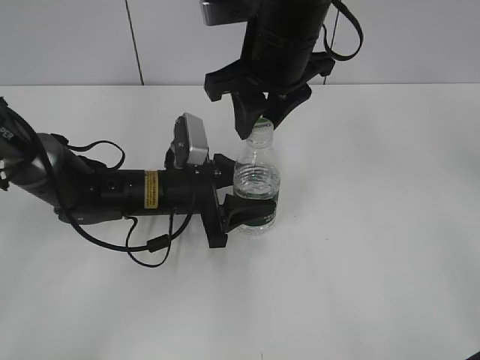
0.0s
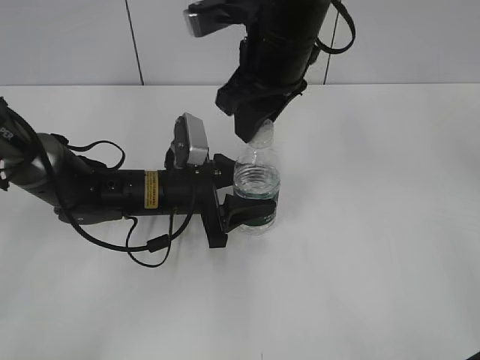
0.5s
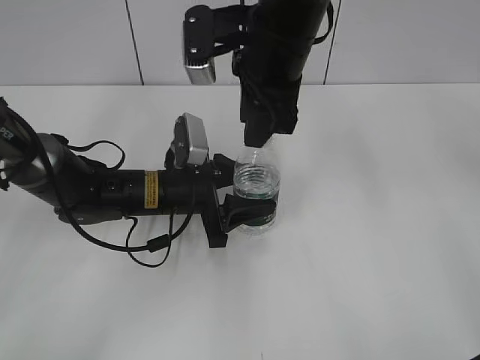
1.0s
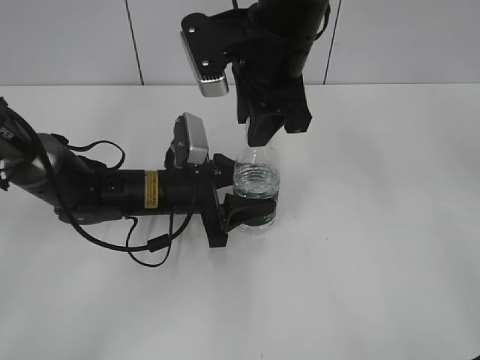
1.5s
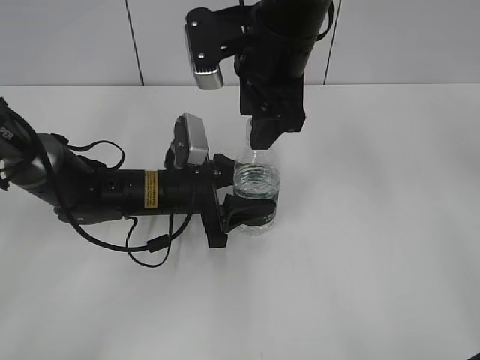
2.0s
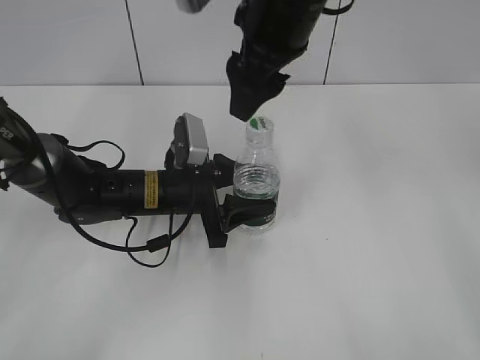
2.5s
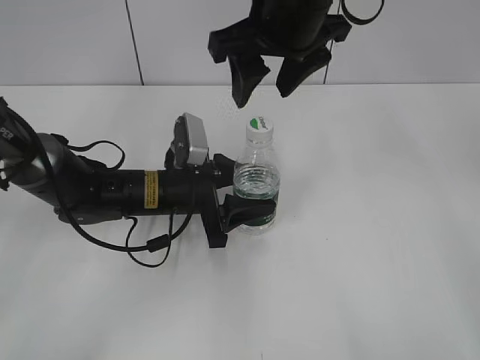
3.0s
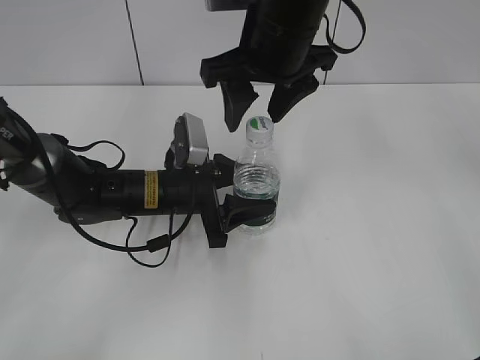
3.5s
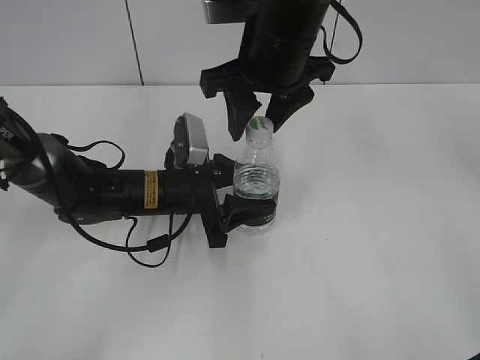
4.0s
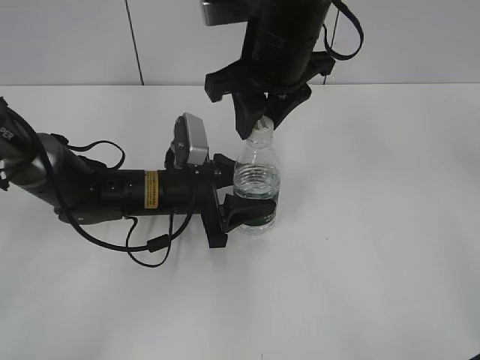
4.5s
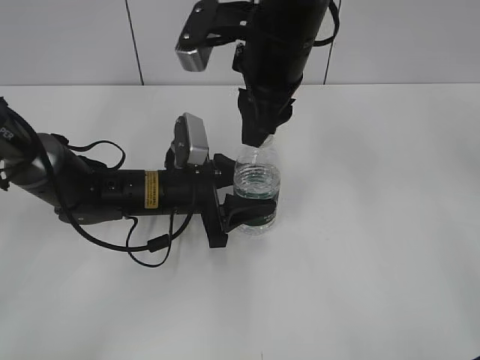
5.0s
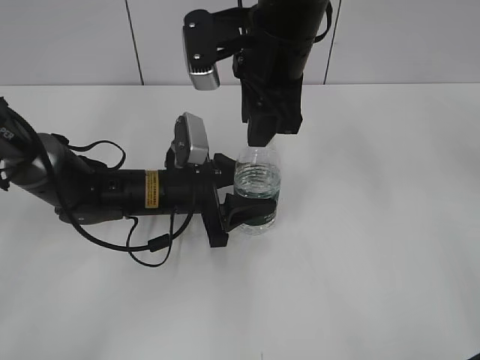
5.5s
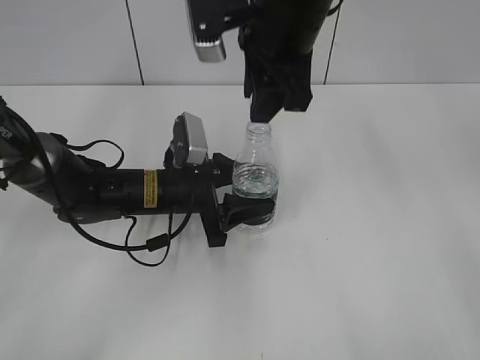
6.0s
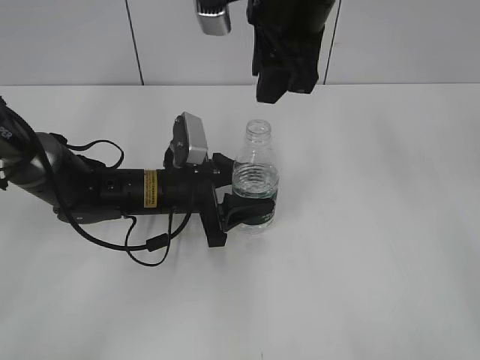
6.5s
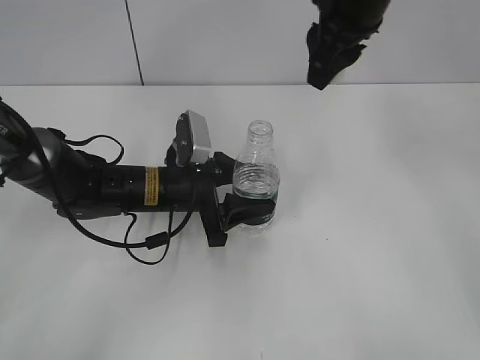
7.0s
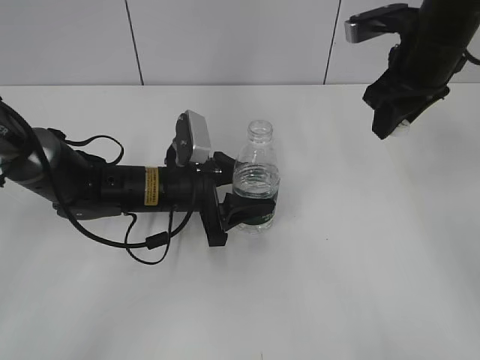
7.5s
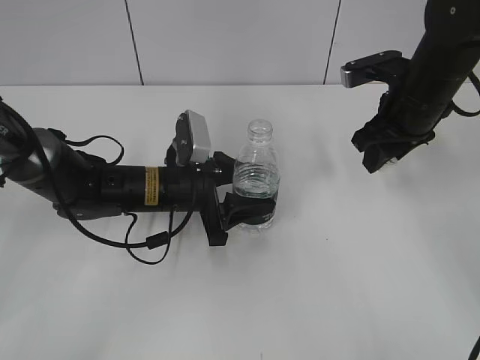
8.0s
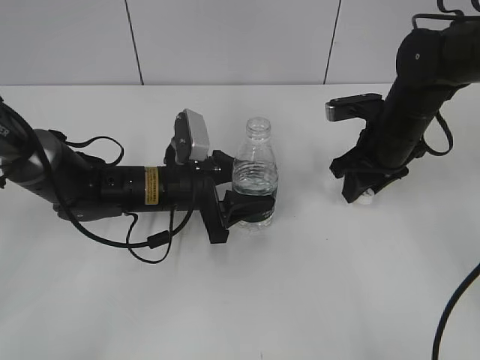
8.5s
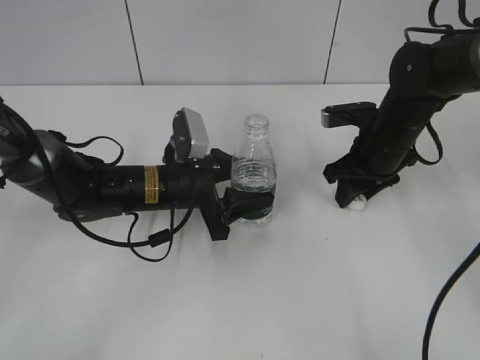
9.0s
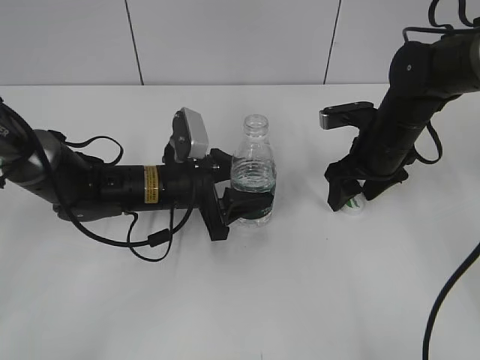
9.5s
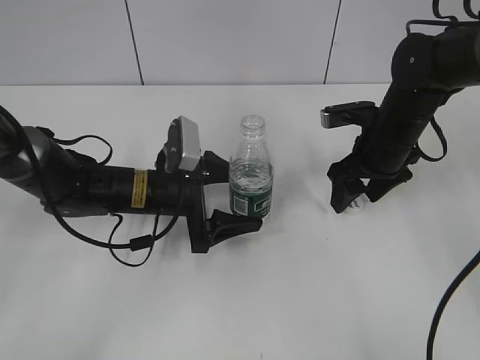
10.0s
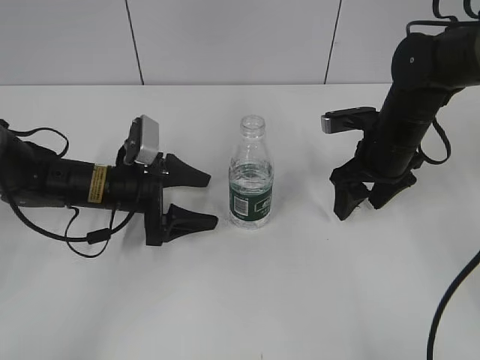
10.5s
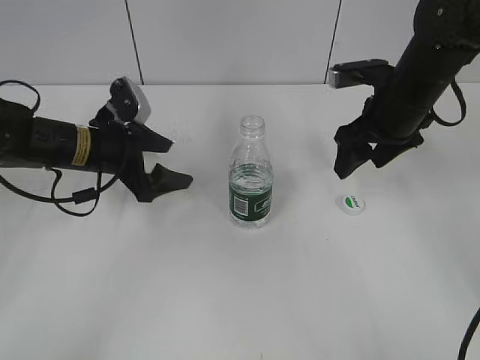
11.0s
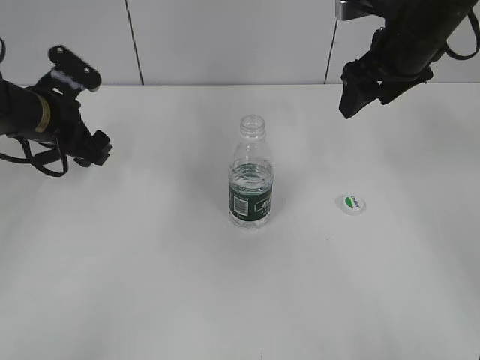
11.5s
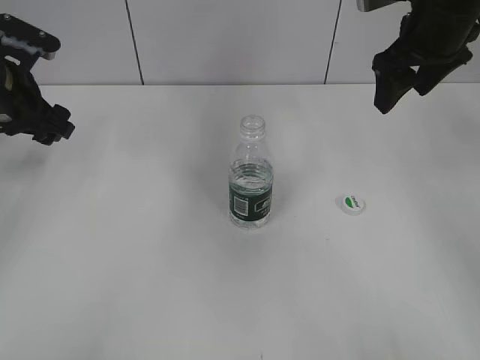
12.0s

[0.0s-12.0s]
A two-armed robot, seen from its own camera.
Step, 0.0s to 6.0s: Unscrew the bottle cap with the right gripper while holding the bottle with the left gripper.
0.0s to 2.0s: The right gripper opens up.
4.0s to 6.0s: The right gripper closes up.
6.0s to 8.0s: The right gripper shifts approximately 20 cm to the right and downward.
8.0s to 10.0s: The left gripper opens up, while the right gripper travels downward by roughly 5 cm, and opens up.
10.0s to 12.0s: The left gripper shifts some 20 cm to the left and upward; the right gripper is displaced upward by about 15 cm.

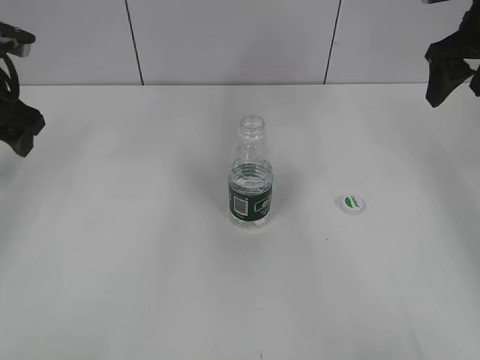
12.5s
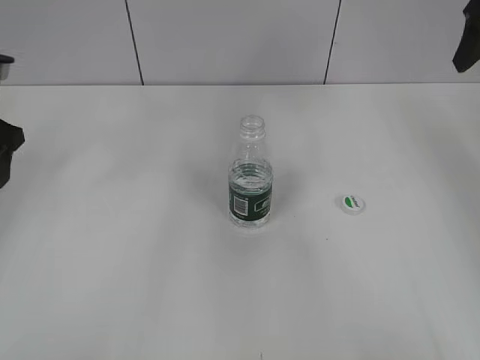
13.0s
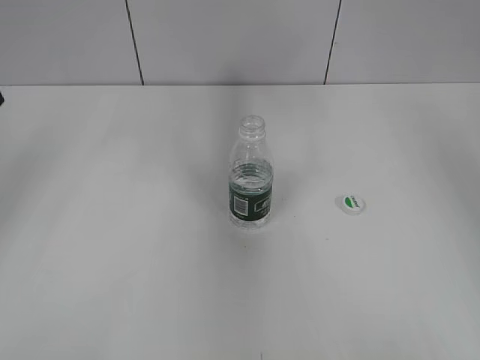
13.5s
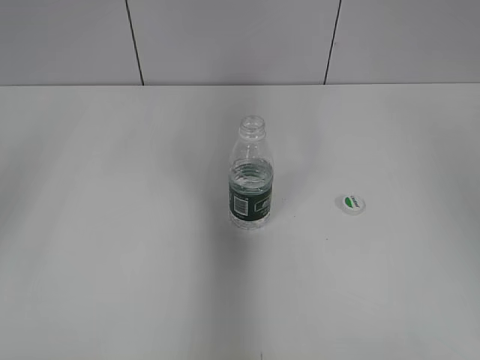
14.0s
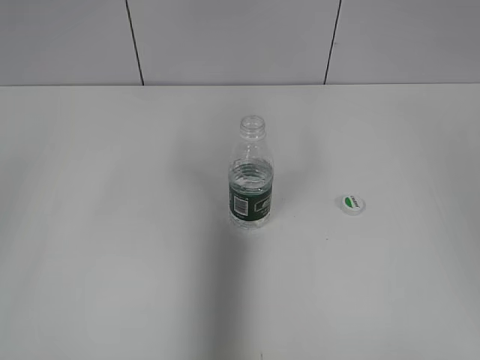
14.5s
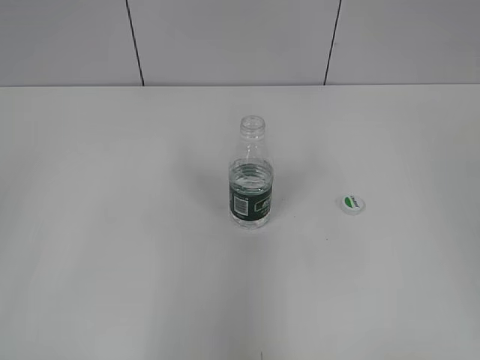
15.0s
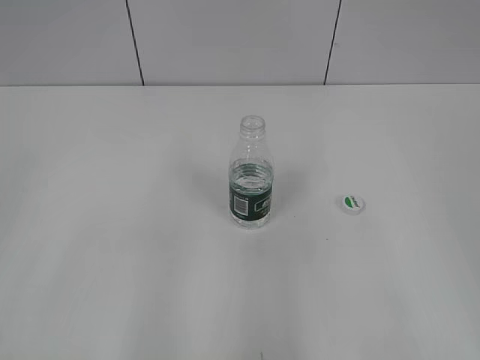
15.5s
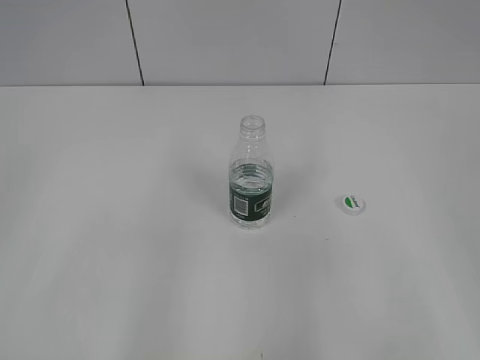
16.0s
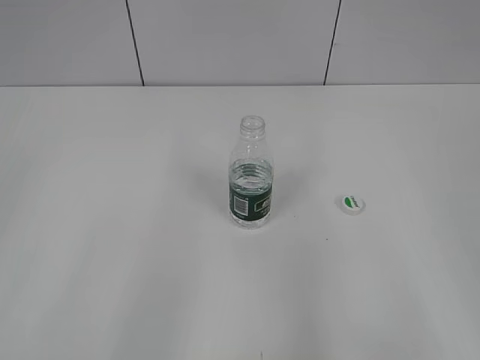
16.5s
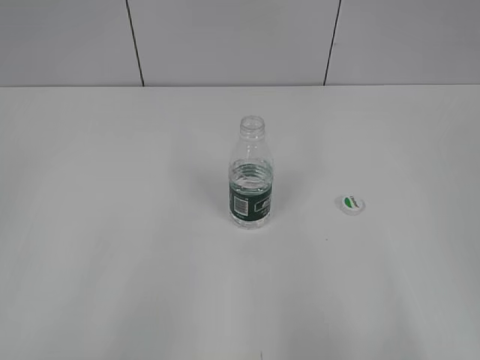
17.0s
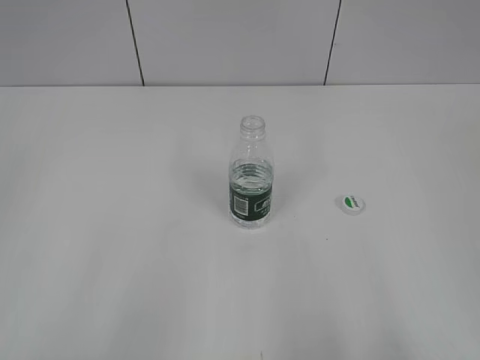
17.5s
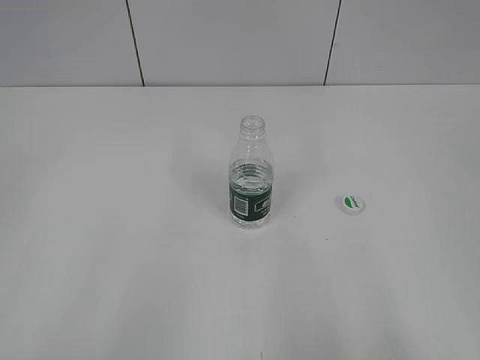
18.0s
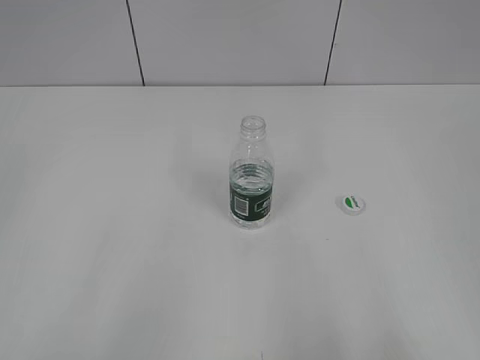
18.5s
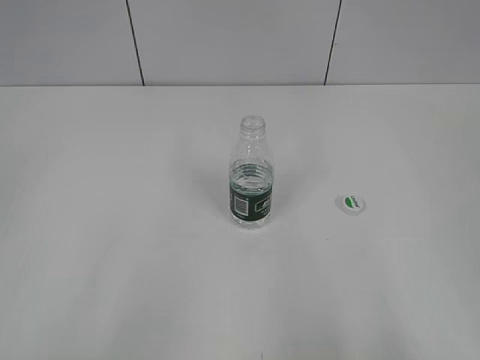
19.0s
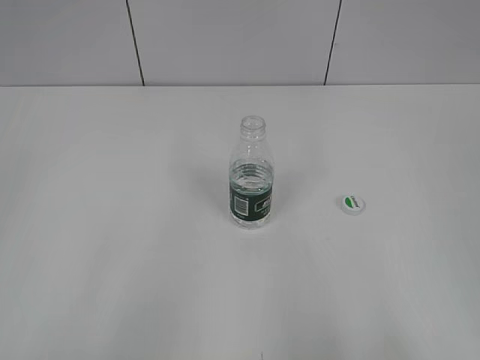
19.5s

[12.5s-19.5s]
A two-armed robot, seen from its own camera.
12.5s to 14.5s: The grippers both shift backward and upward by some 25 cm.
14.5s to 16.0s: The left gripper shifts roughly 10 cm backward, while the right gripper heads downward and backward, covering some 15 cm.
17.5s to 19.5s: Neither gripper changes place.

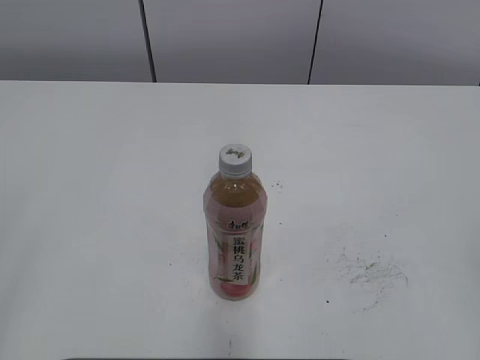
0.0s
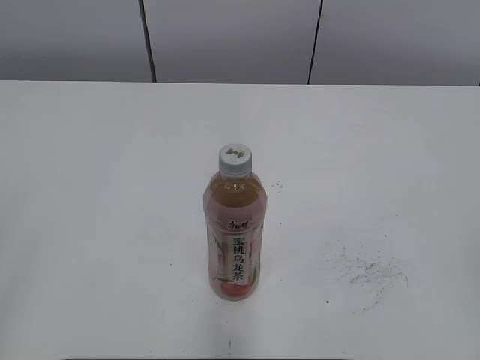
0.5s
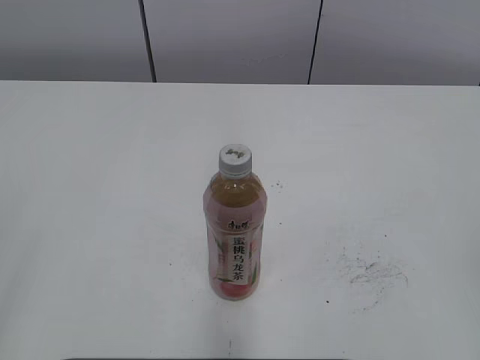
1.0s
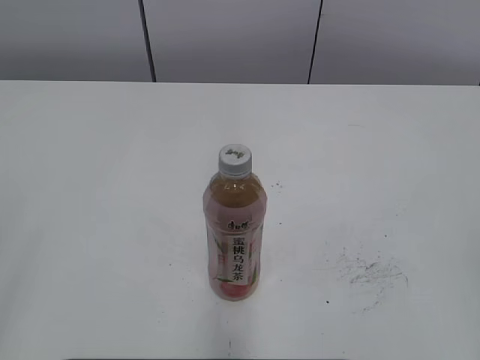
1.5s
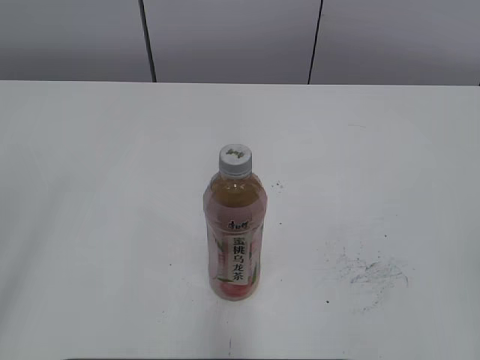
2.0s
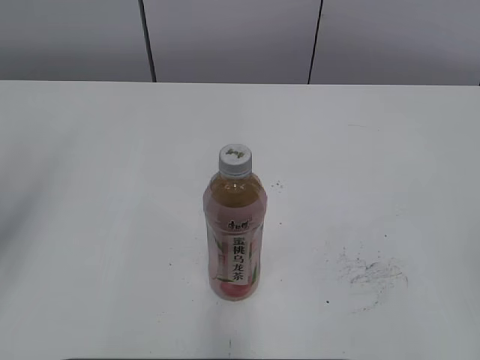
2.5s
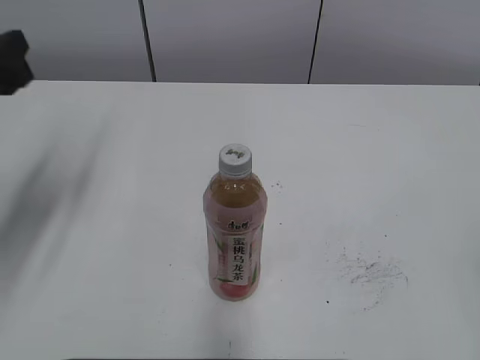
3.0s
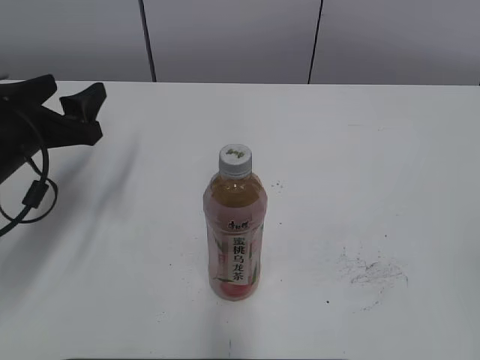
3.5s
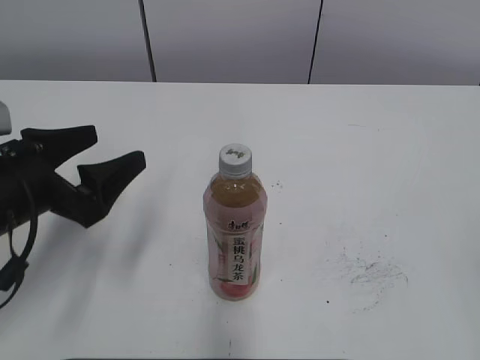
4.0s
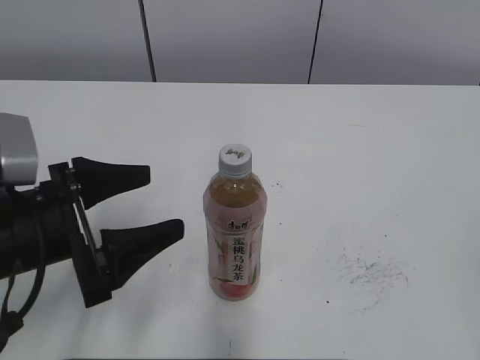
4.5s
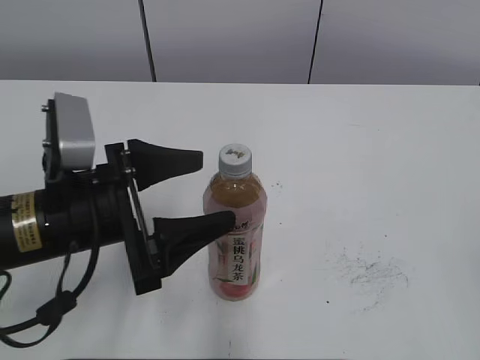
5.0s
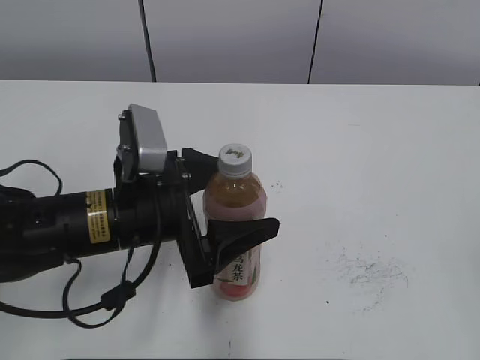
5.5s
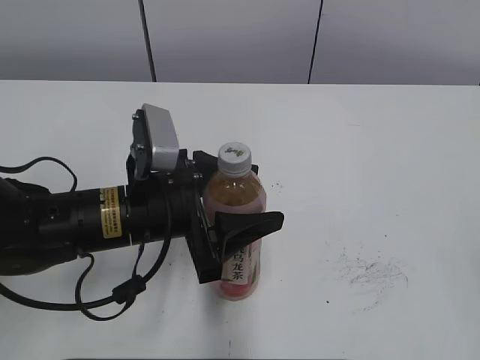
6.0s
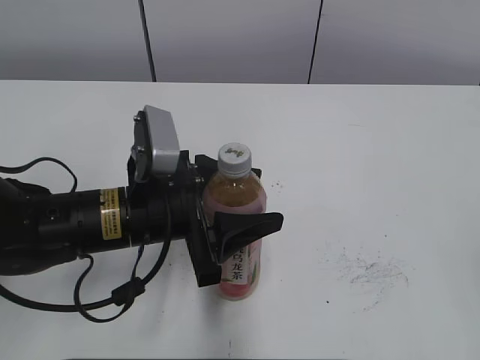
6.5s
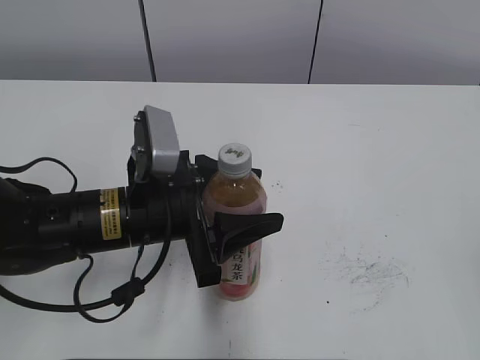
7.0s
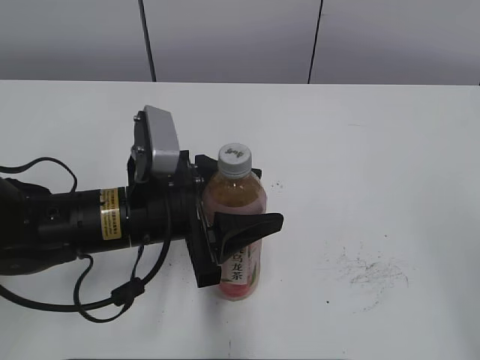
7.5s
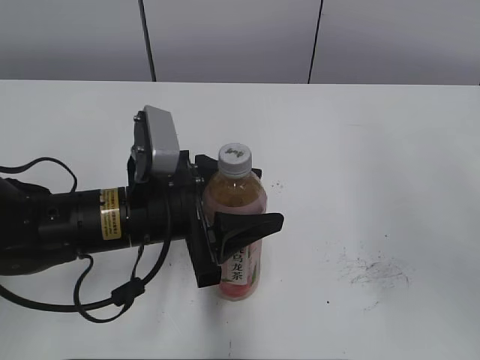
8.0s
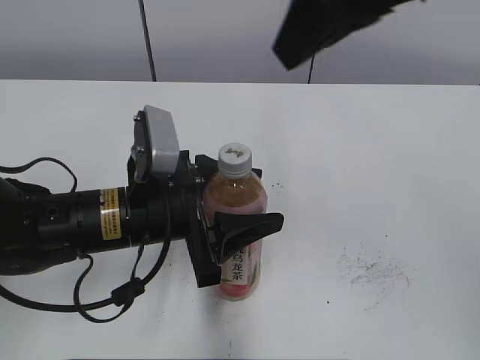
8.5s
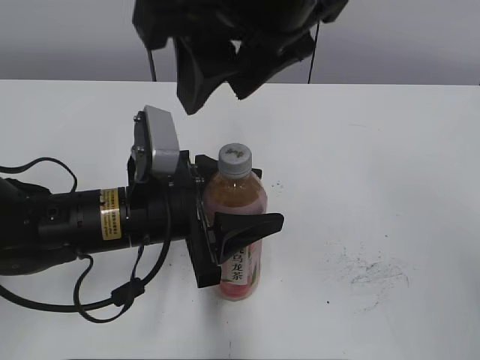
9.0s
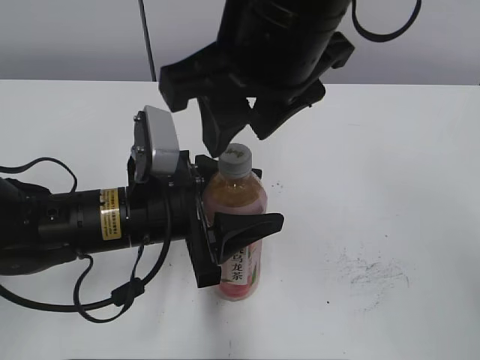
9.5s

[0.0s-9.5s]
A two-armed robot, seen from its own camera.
Step, 0.0s to 6.5s: Grab the Peach Oolong Tea with the left hand.
2.0s to 4.0s: The left gripper goes about 25 cm forward and downward, and opens up.
4.0s to 5.5s: The left gripper travels to the right by some 10 cm.
5.5s to 7.5s: The left gripper closes.
7.5s to 9.5s: The right gripper moves to the left and forward, about 35 cm.
